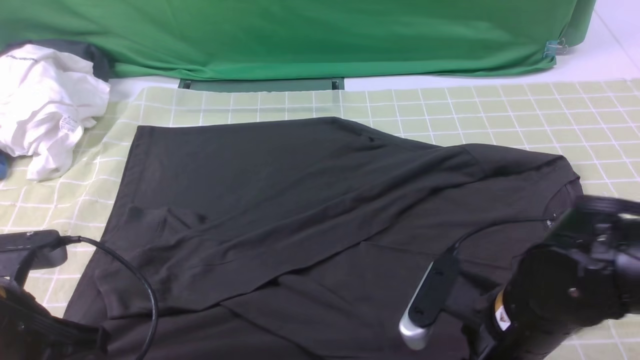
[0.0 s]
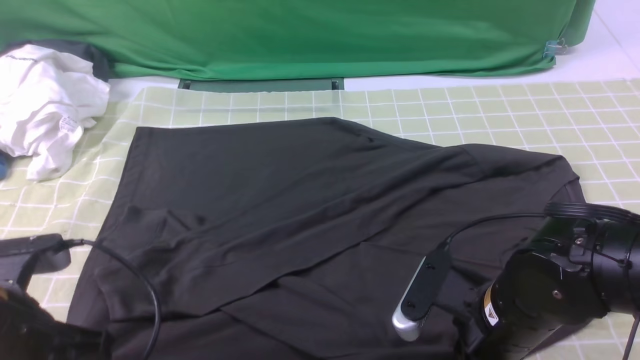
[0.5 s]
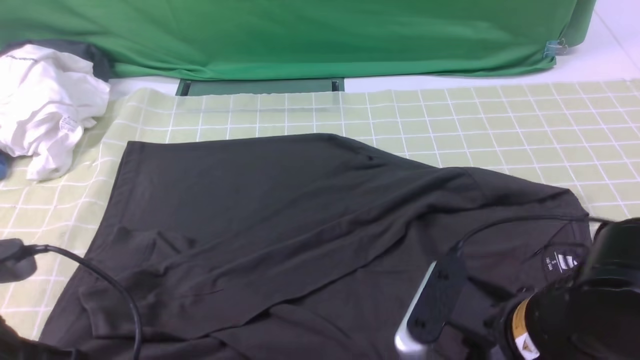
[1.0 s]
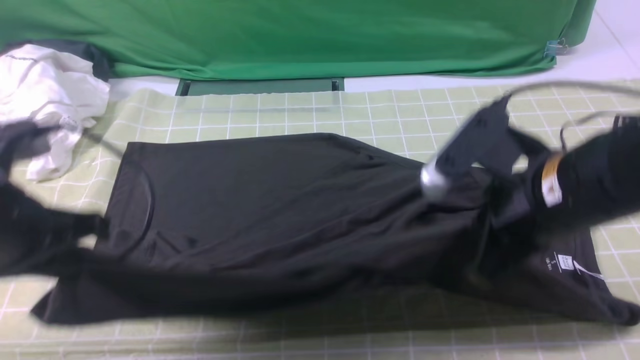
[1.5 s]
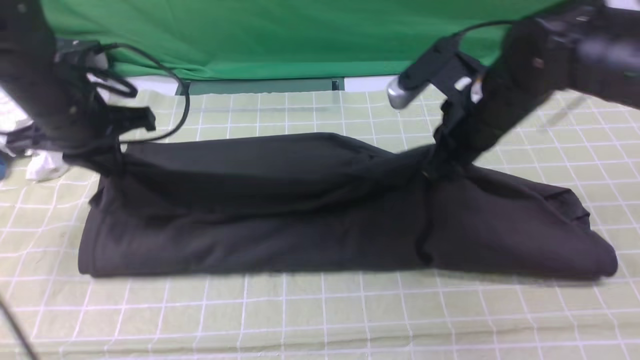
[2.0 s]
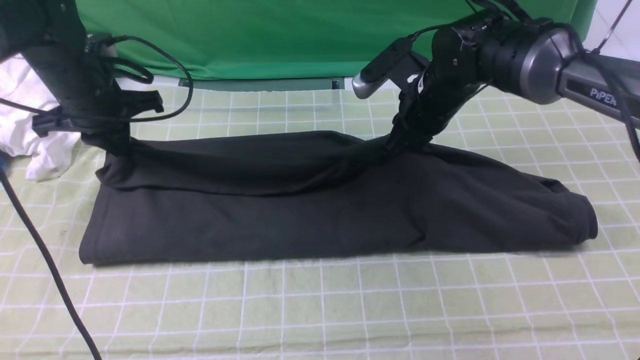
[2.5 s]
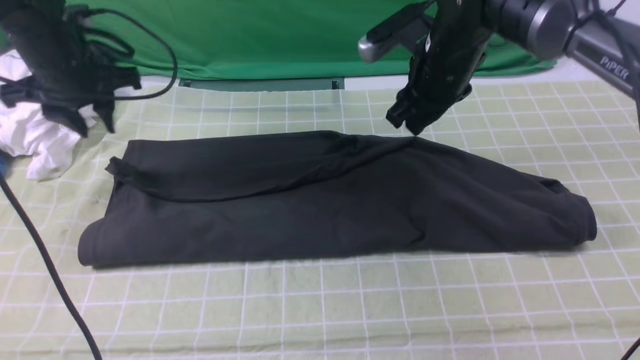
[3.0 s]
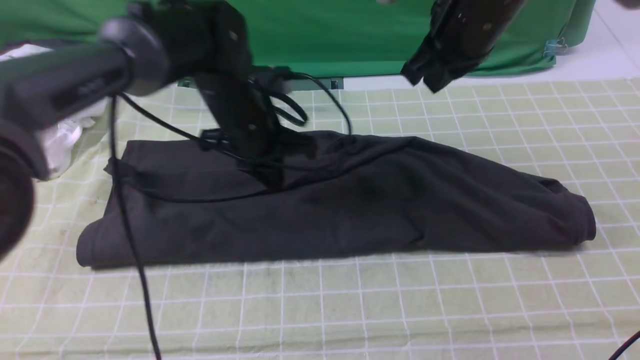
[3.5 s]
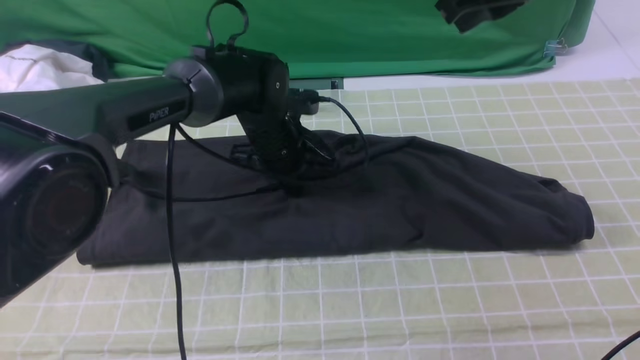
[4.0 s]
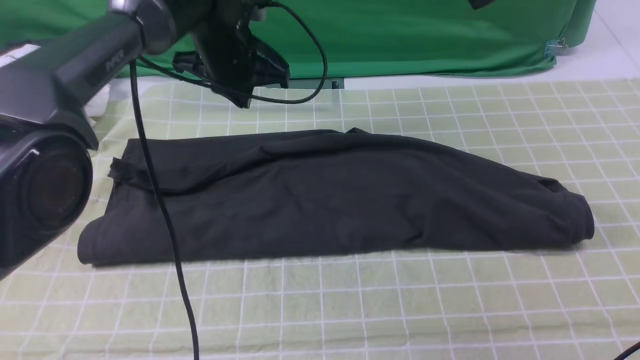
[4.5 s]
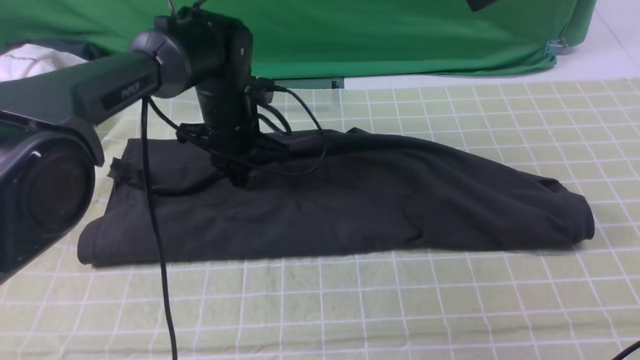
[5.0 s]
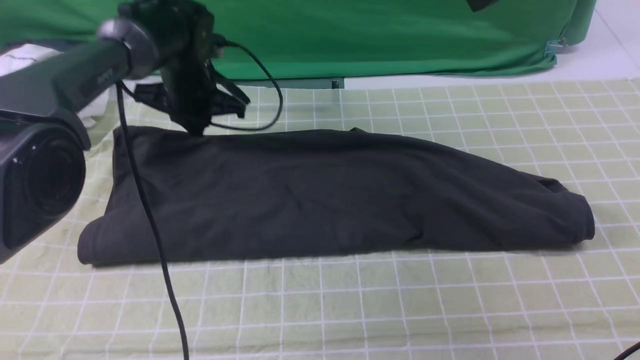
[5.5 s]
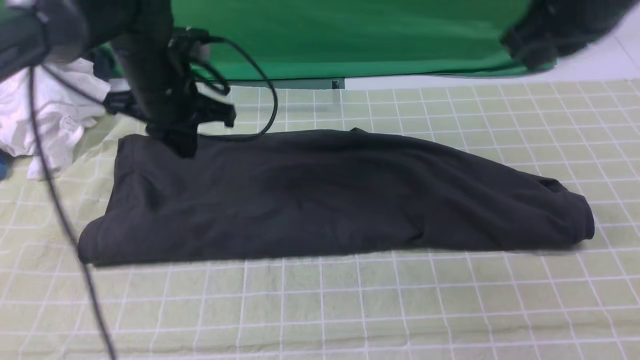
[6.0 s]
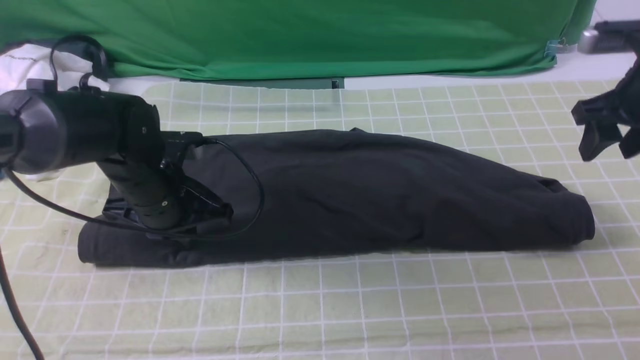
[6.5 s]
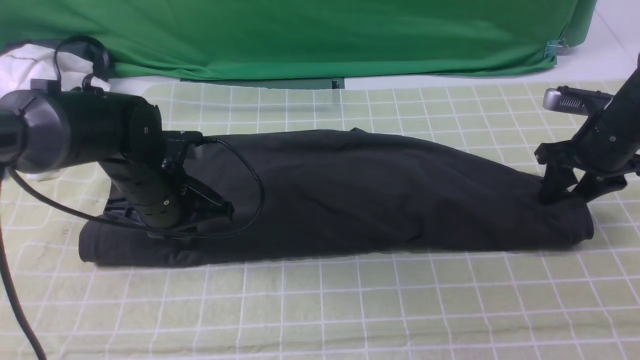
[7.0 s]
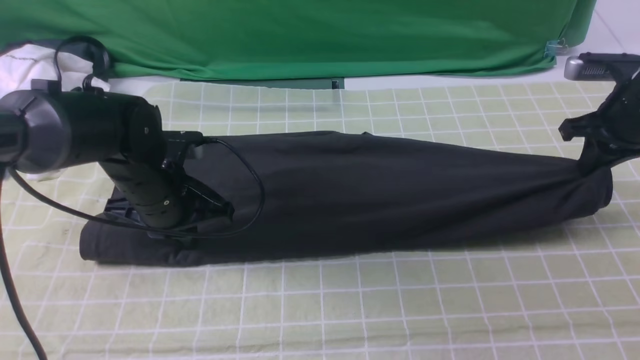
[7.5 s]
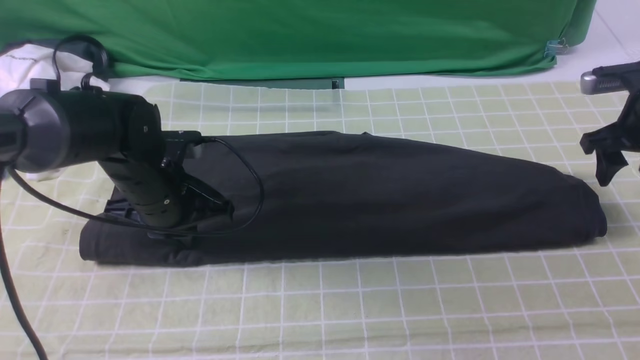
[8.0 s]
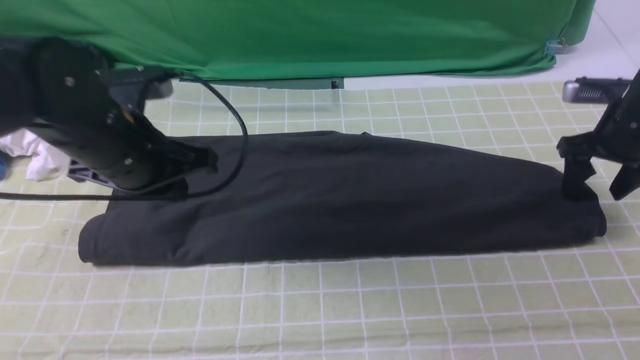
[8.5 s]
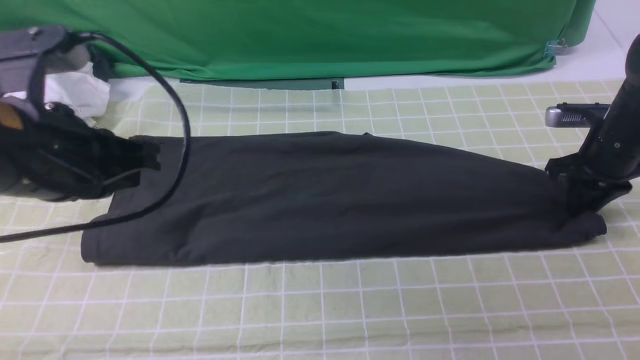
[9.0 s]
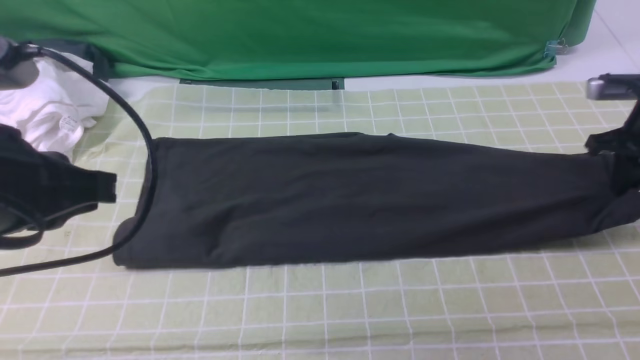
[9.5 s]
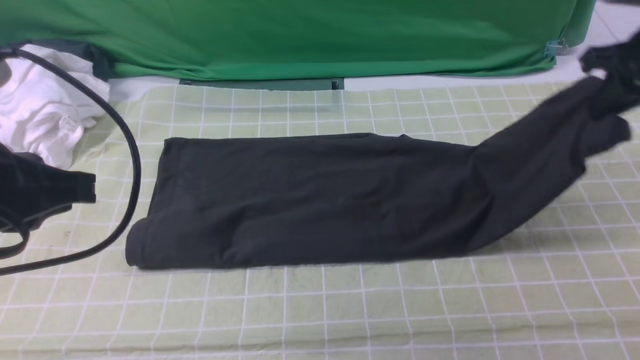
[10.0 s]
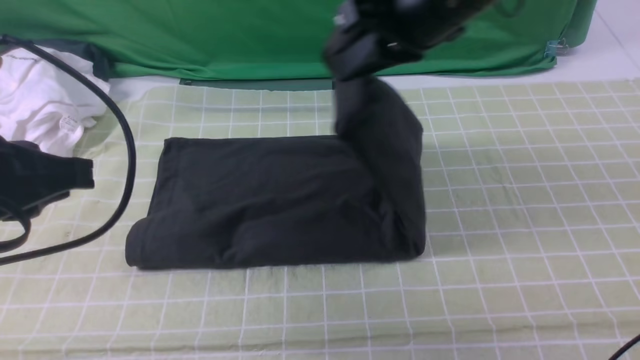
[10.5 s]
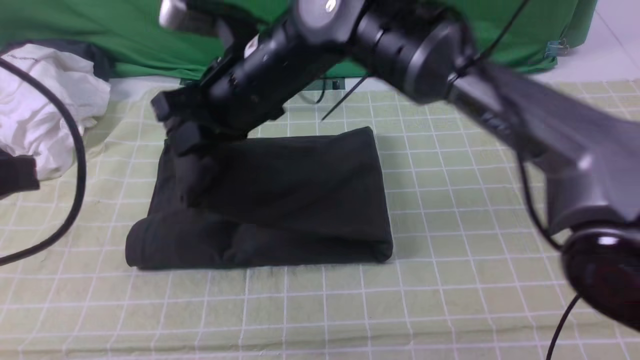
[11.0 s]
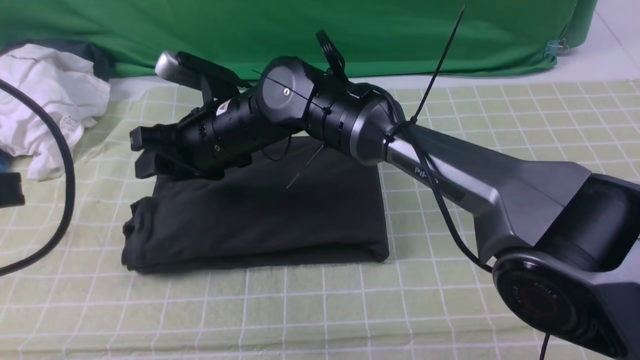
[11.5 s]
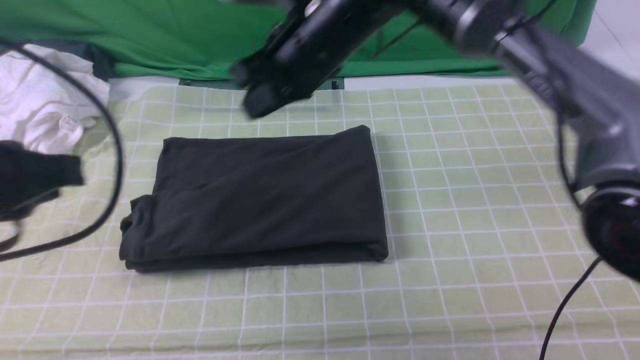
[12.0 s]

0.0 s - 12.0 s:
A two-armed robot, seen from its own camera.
Step, 1.0 s - 5.5 s: use both arms to drag the lower edge of the fabric forward and fold it over the upper edge.
Step, 6.0 s - 9.0 s: use the right arm to clamp the right edge of the fabric.
Step, 9.5 s - 11.5 s: use the right arm to drag the right edge of the fabric to the left and folds it over the left edge.
0.0 s - 2.0 s: The right gripper heads forward and upward, covering about 20 cm, and closes its fingers, while the left gripper travels forward by approximately 20 cm.
2.0 s - 4.0 s: The right gripper moves upward, about 15 cm, and opens, then closes once more. The left gripper shifts some 20 cm to the right, downward and forward, and opens, then closes once more.
4.0 s - 6.0 s: The right gripper goes some 5 cm to the right. The left gripper is displaced to the left and upward by roughly 10 cm.
6.0 s - 8.0 s: The right gripper heads downward, to the right and forward, covering about 25 cm, and opens. Meanwhile the left gripper is displaced backward and downward by about 10 cm.
8.0 s - 10.0 s: The left gripper shifts some 25 cm upward and backward. Meanwhile the right gripper is displaced upward and to the left by approximately 15 cm, and closes up.
10.0 s - 12.0 s: The right gripper heads to the left, covering about 30 cm, and opens, then closes again.

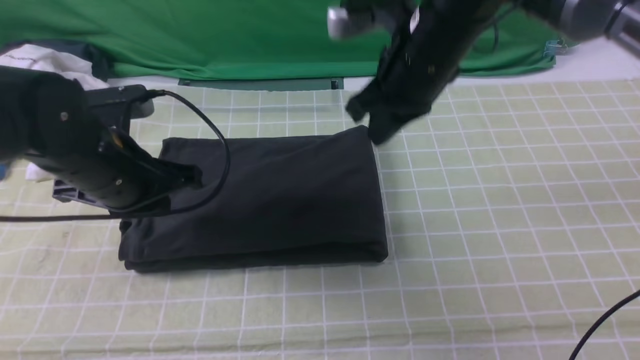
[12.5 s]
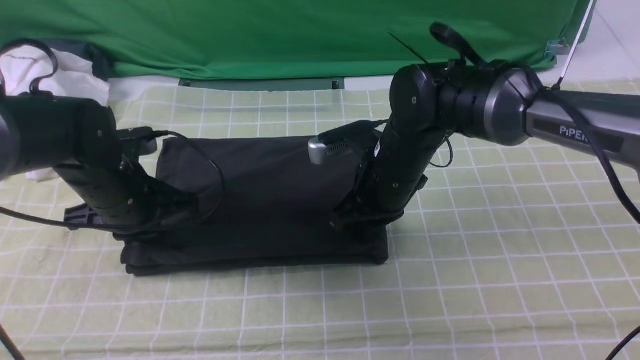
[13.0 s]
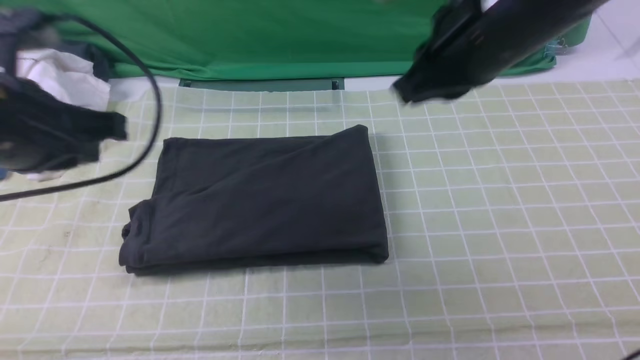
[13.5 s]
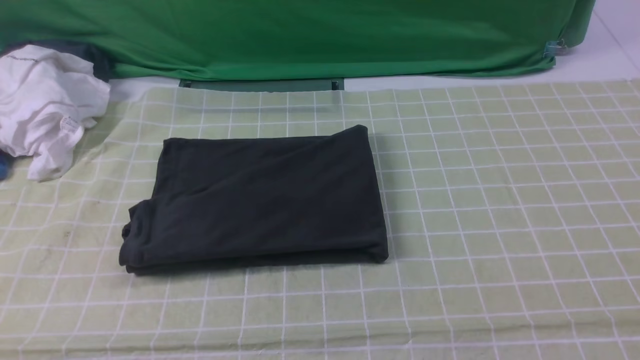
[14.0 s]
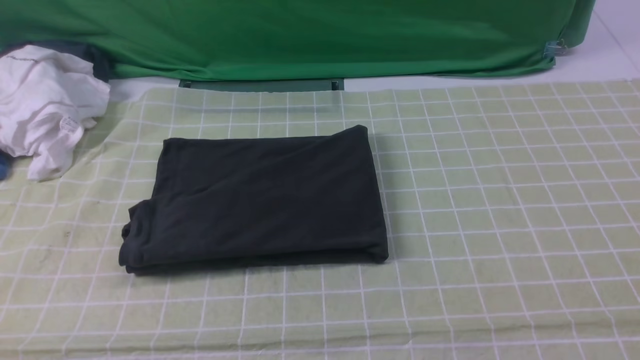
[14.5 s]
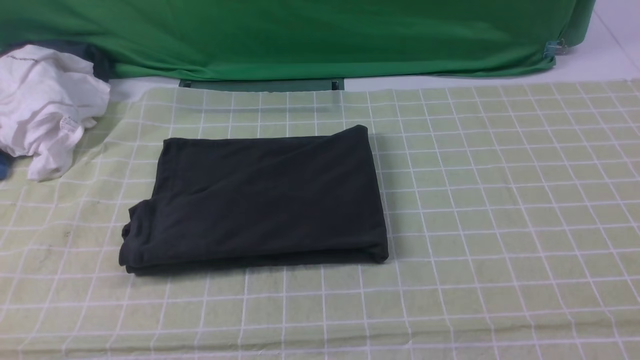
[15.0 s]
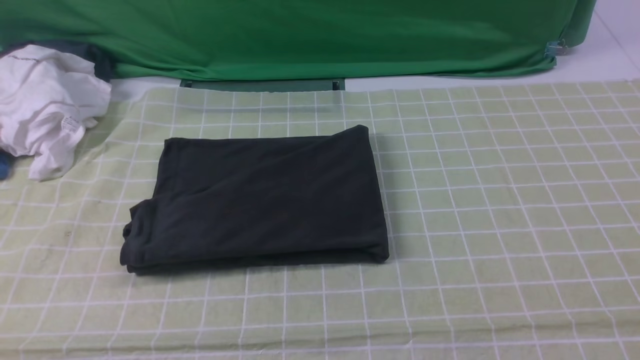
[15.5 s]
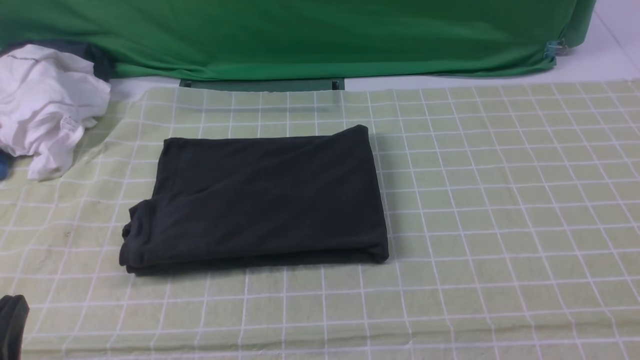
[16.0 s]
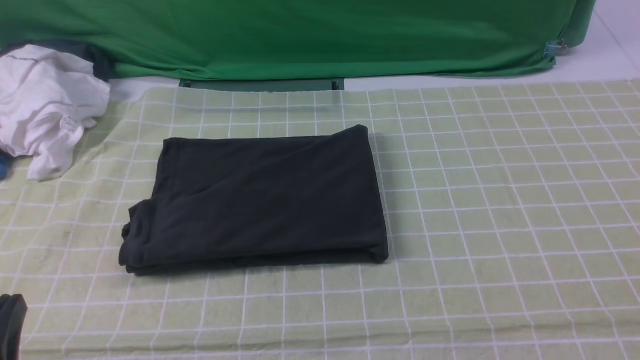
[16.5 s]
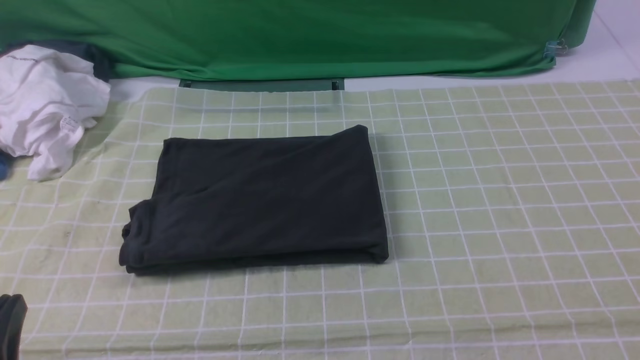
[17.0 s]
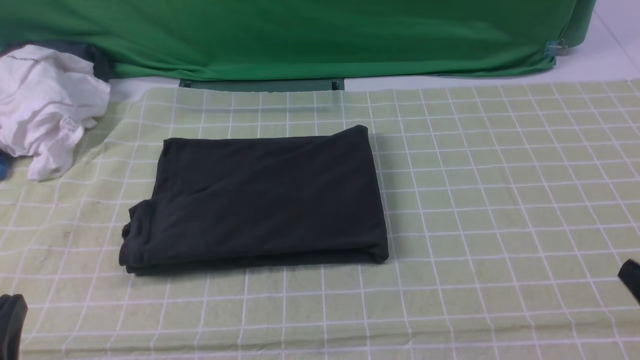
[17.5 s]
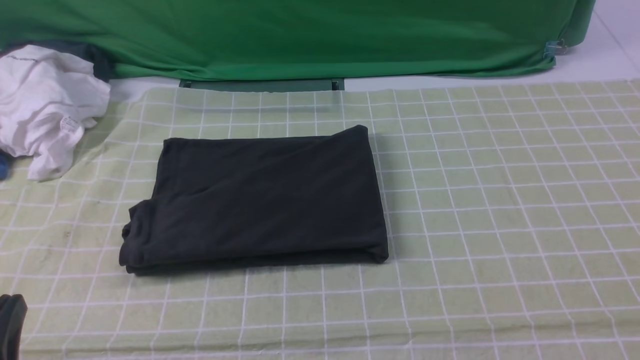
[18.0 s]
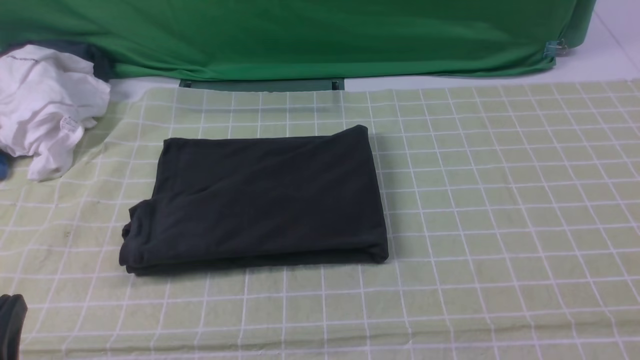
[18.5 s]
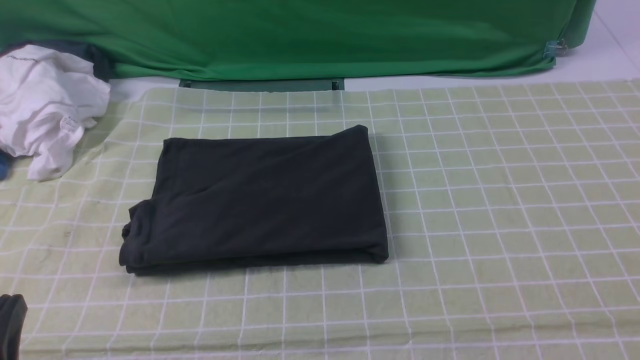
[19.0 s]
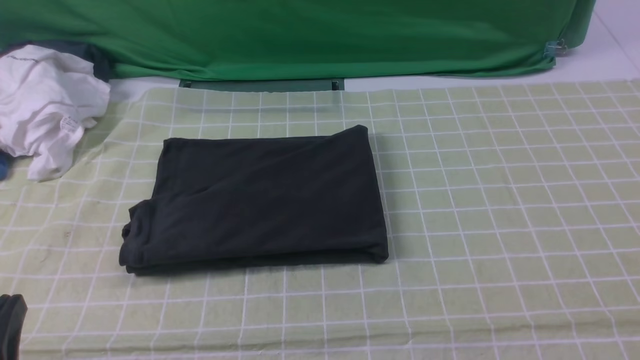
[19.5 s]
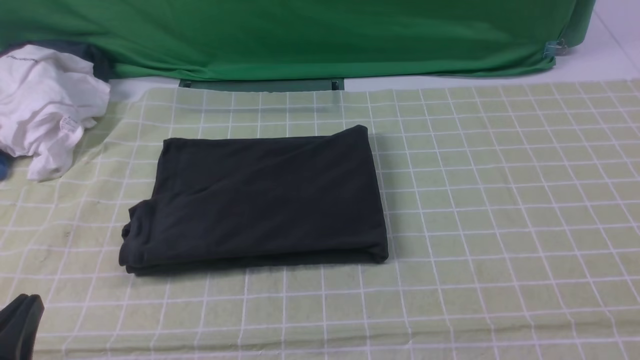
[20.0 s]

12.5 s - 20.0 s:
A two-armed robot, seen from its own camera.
12.5 s - 14.5 s: The right gripper heads backward and to the right, covering about 40 cm; the left gripper goes approximately 25 cm backward.
14.5 s - 16.5 s: The left gripper shifts about 15 cm downward.
